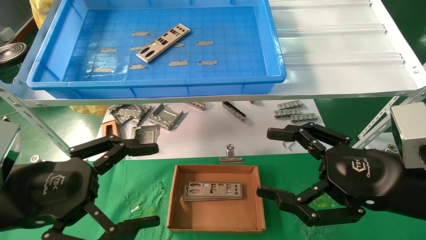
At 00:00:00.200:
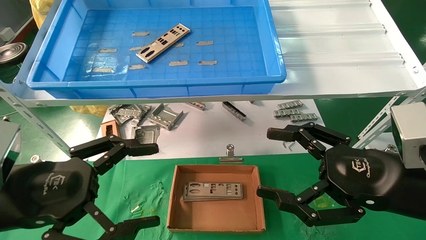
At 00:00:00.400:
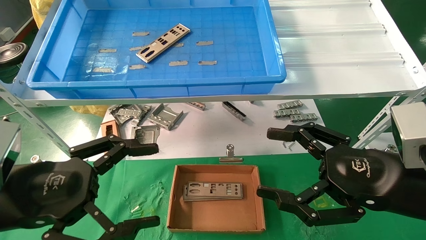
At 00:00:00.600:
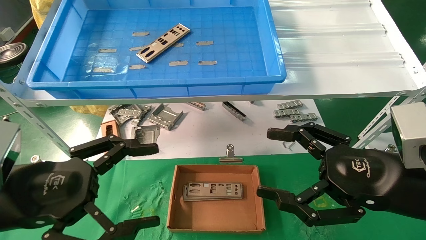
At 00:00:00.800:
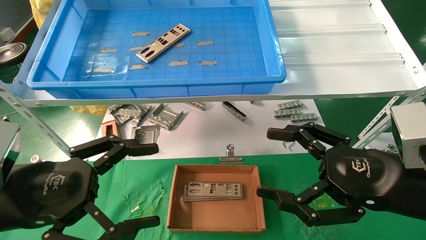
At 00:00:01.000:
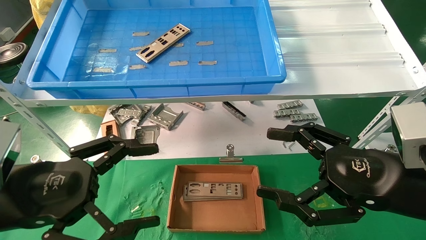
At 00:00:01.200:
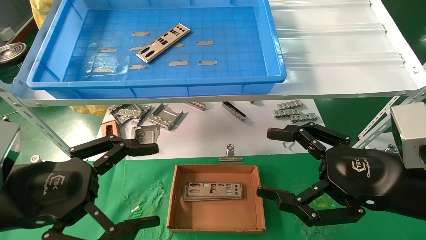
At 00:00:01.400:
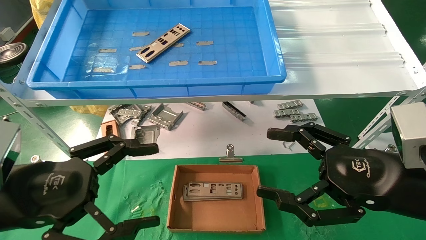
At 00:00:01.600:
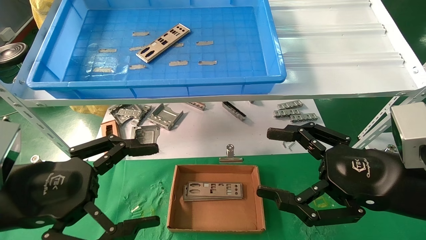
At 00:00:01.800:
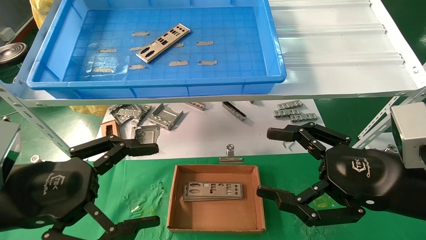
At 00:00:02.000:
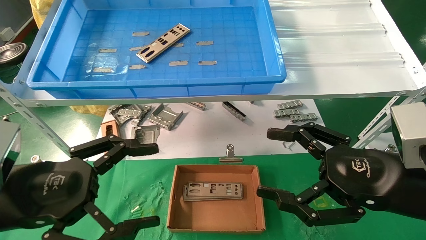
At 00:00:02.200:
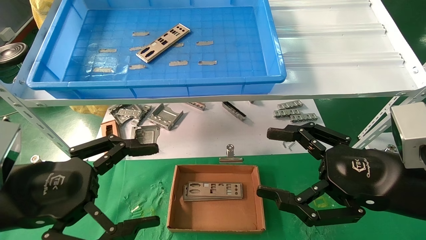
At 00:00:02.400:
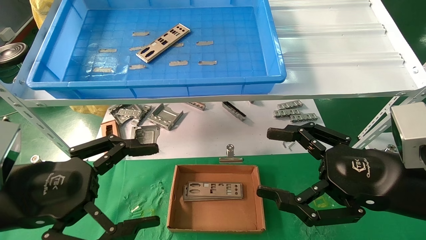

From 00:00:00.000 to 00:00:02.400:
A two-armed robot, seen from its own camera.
Task of the whole recording: pick up the parts on the tray and put them in the cardboard box.
From 00:00:00.000 to 00:00:02.400: Neither gripper changes place.
